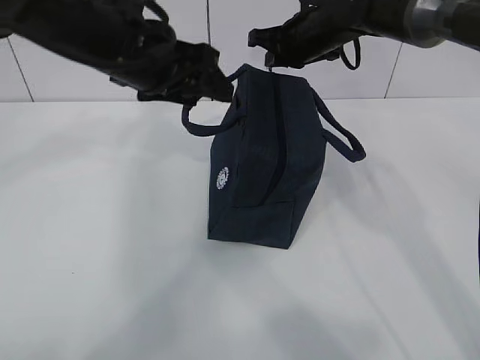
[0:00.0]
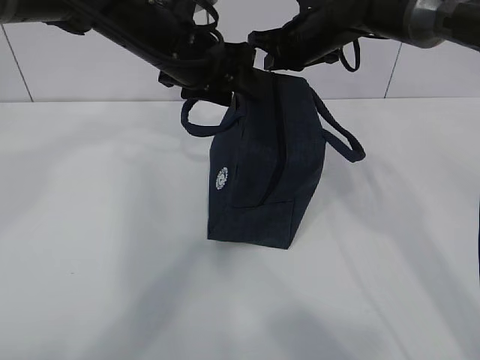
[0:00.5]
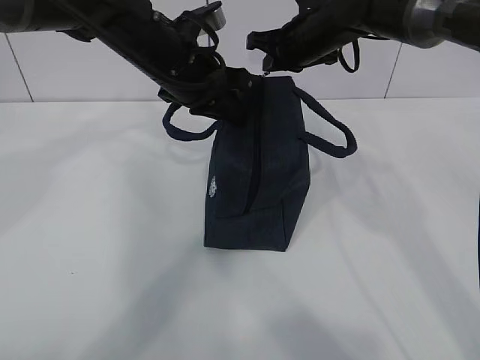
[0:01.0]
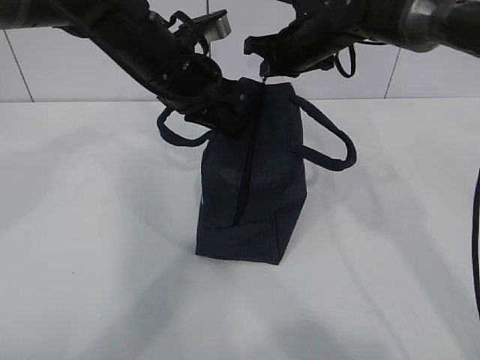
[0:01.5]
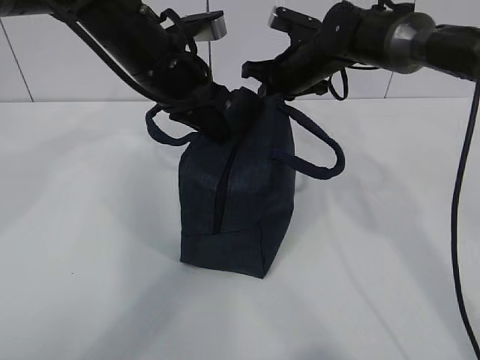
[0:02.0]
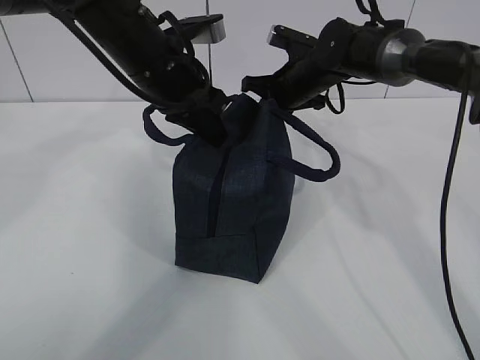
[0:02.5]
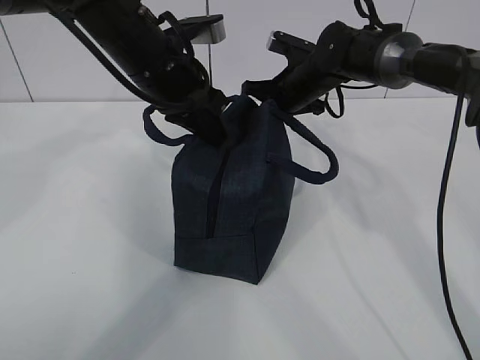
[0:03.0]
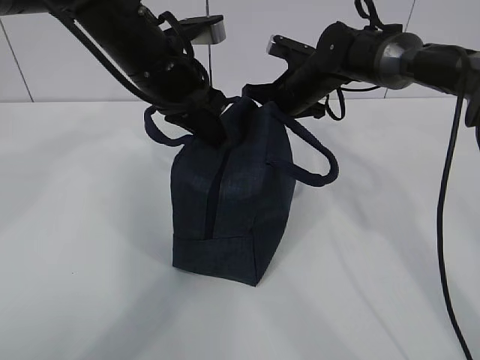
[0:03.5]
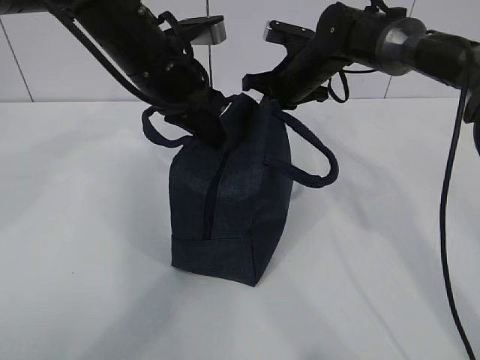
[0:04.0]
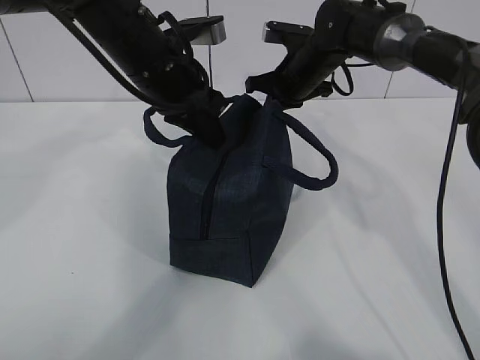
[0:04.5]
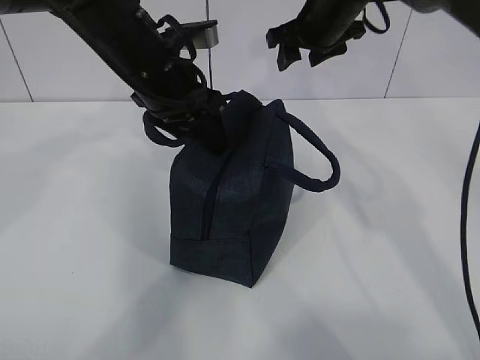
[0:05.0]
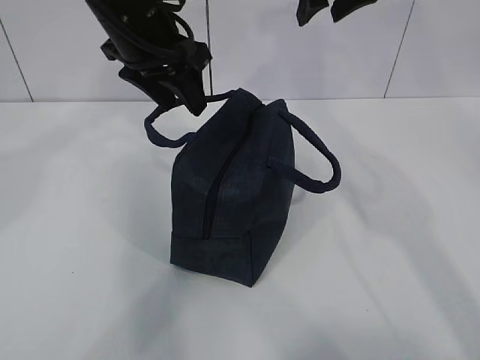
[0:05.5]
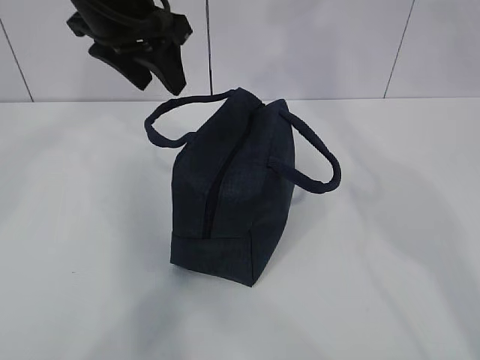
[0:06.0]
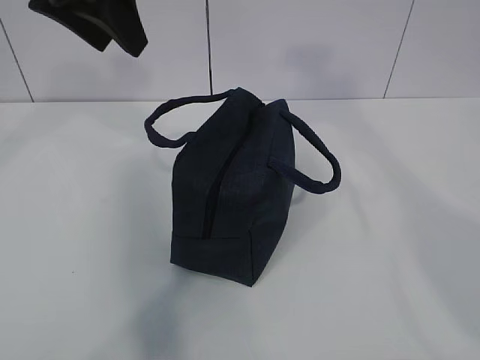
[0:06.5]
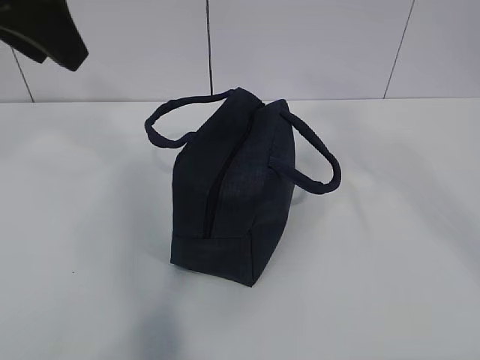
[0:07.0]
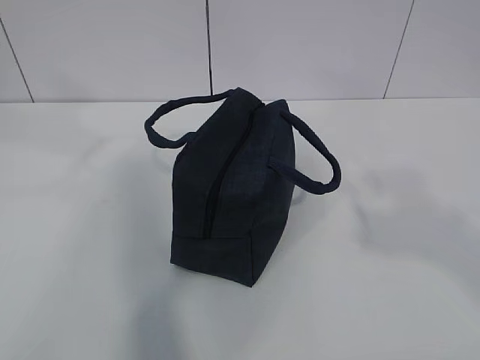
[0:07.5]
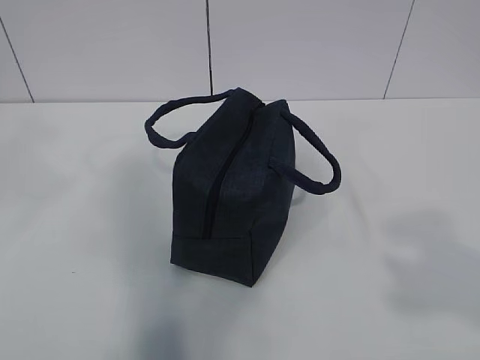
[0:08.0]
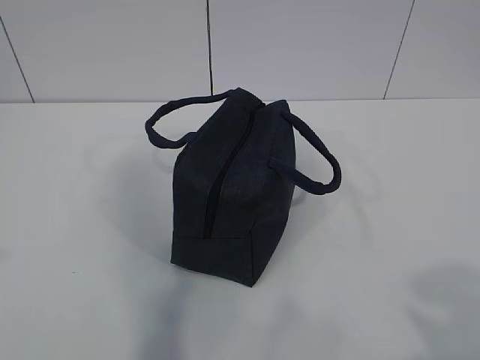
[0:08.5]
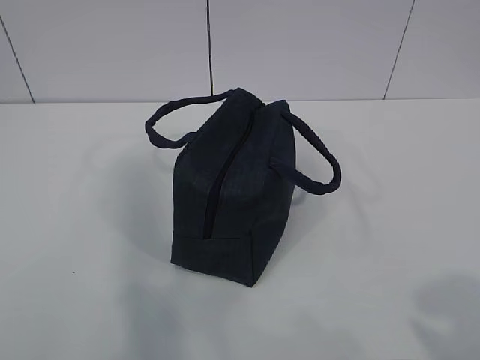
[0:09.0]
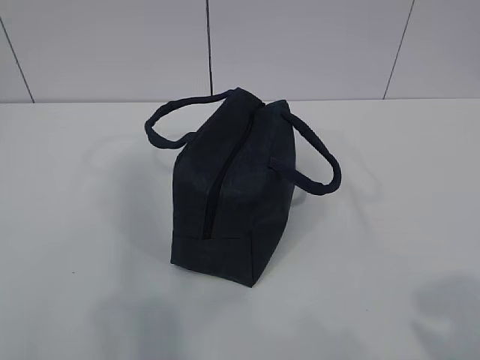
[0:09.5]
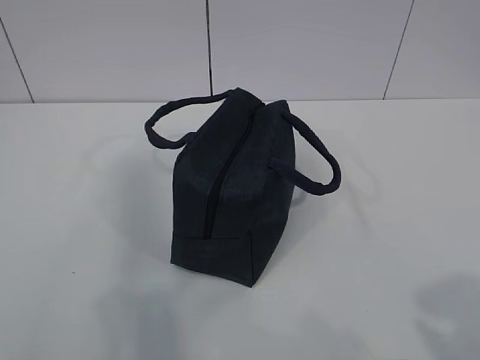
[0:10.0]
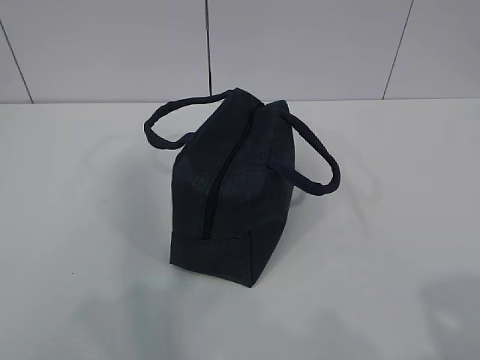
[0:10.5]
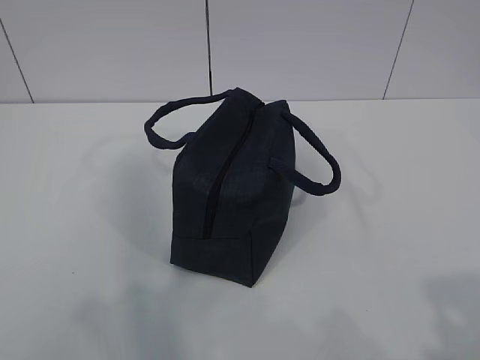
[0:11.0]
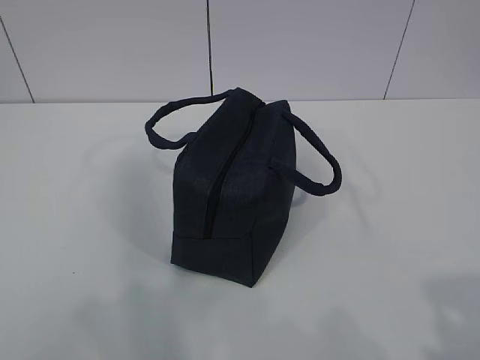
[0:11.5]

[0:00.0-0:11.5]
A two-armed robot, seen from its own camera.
0:00.0 to 0:02.0: The left gripper ends up some 5 cm from where it was, and closes.
0:02.0 to 0:04.0: The grippers stay close to where they were, moving slightly.
0:04.0 to 0:06.0: The left gripper heads upward, covering approximately 10 cm, and opens, while the right gripper heads upward and backward, covering about 25 cm, and opens up.
0:06.0 to 0:07.5: The left gripper moves backward, upward and to the left, roughly 20 cm, and closes its fingers, while the right gripper shifts approximately 35 cm backward.
0:07.5 to 0:09.5: The left gripper is displaced backward, downward and to the left by roughly 30 cm. The right gripper shifts about 15 cm downward.

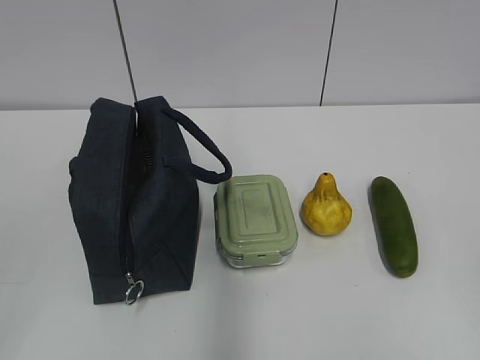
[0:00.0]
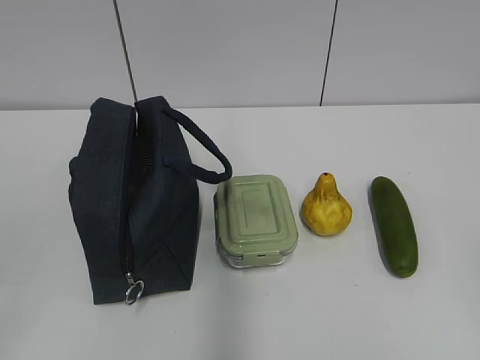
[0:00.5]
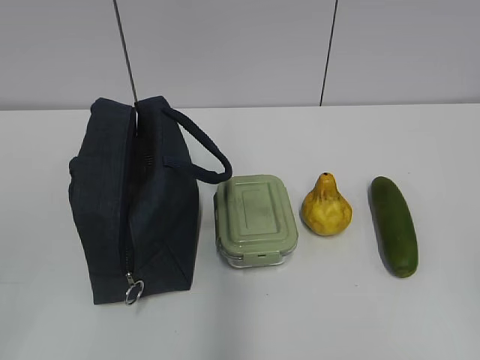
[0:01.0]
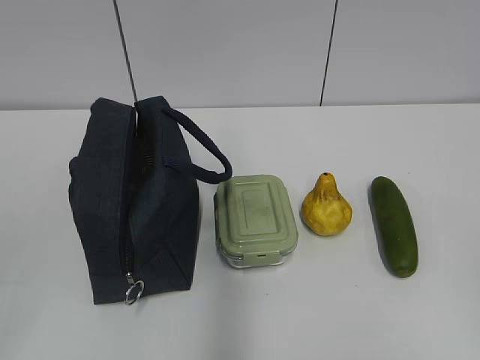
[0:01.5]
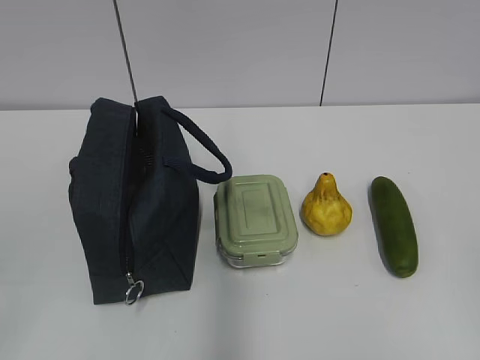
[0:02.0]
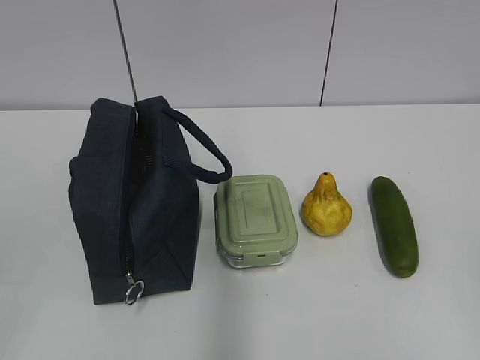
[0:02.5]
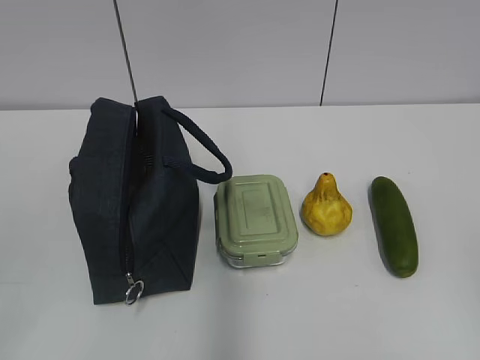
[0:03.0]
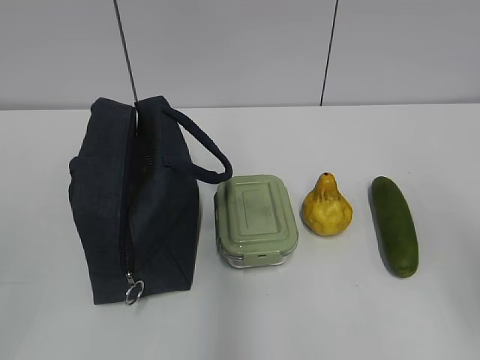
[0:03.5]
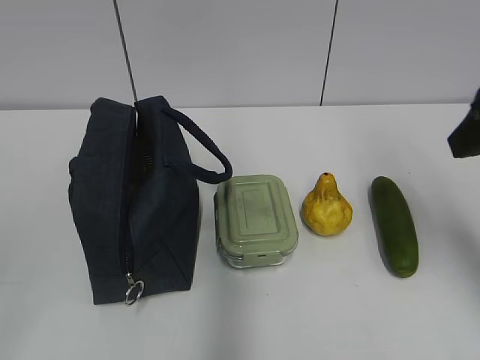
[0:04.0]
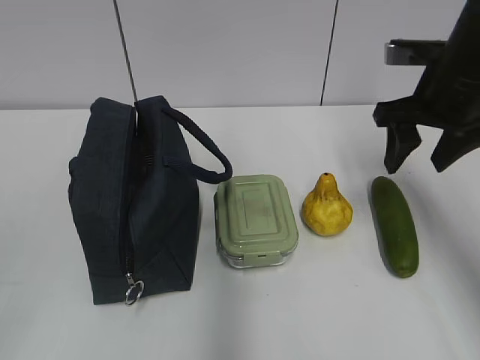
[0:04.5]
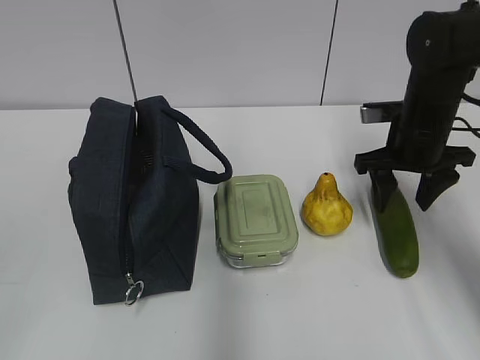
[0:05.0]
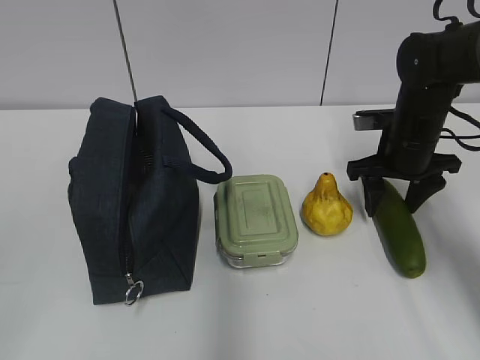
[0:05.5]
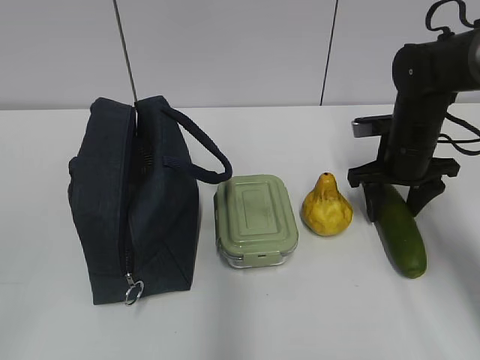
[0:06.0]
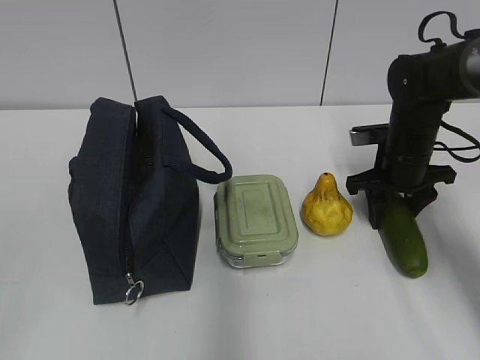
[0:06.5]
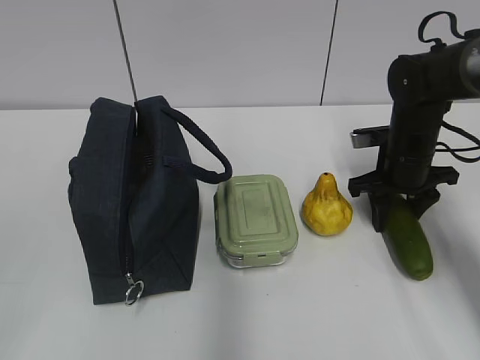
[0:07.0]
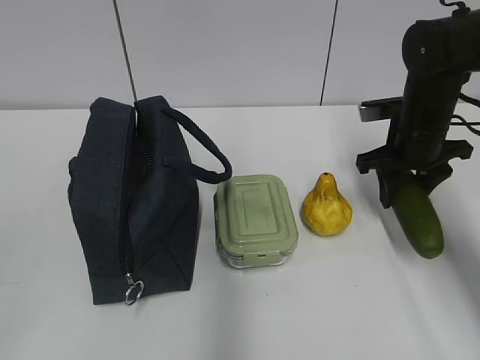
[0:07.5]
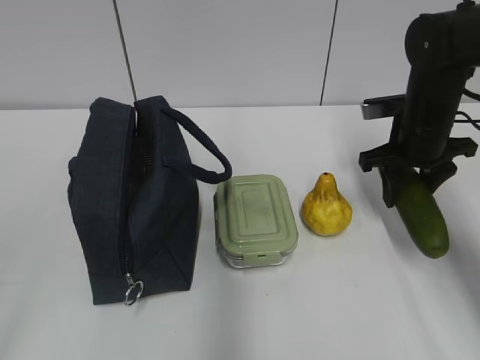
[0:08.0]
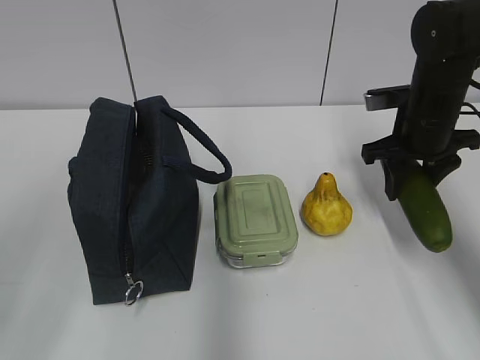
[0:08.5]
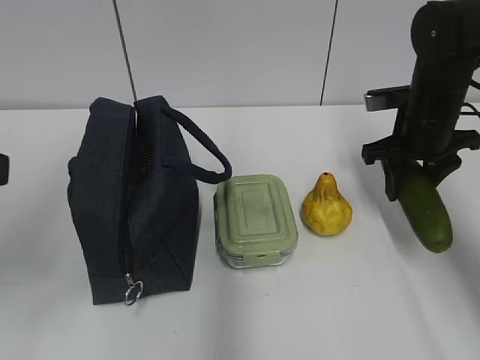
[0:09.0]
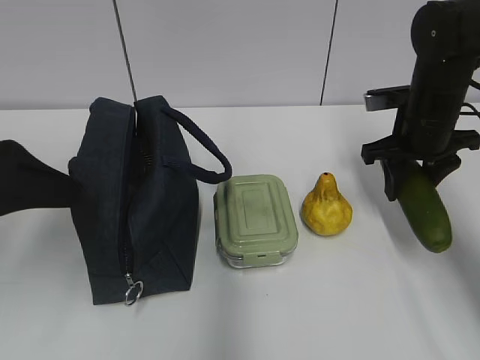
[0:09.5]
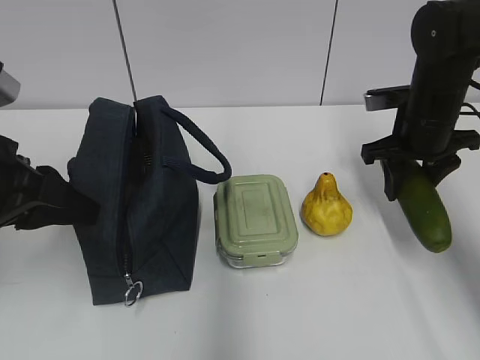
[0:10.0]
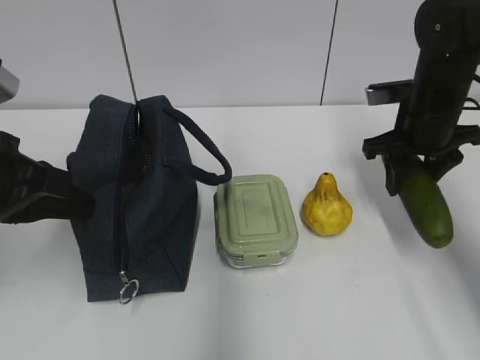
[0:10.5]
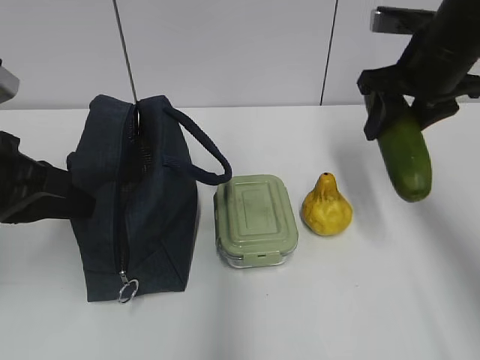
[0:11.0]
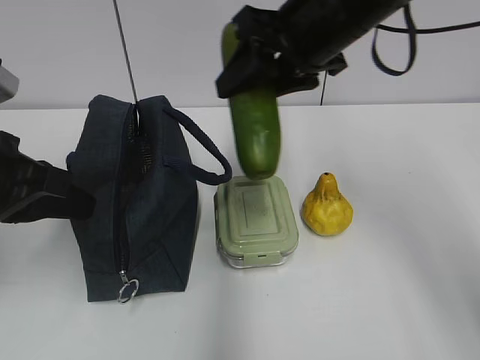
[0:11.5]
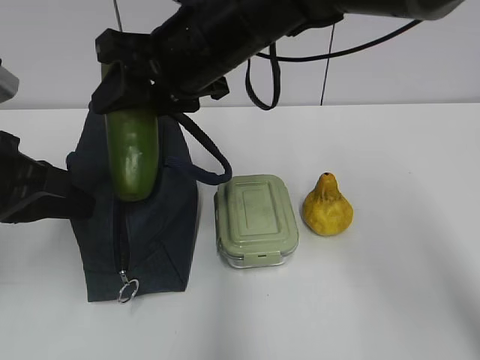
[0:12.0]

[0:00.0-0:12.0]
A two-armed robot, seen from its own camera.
0:02.0 to 0:04.0: The right gripper is displaced forward by roughly 25 cm, and opens.
0:04.0 to 0:06.0: The right gripper moves downward and forward, some 25 cm.
0:06.0 to 0:08.0: The grippers stay close to where they were, moving slightly.
0:08.0 to 0:10.0: The left gripper heads forward, covering about 25 cm.
0:10.0 to 0:12.0: The right gripper moves to the left and upward, approximately 25 cm. The left gripper closes up.

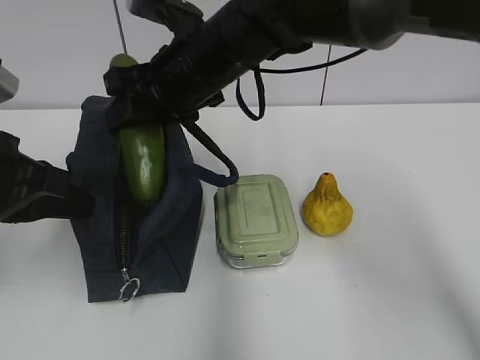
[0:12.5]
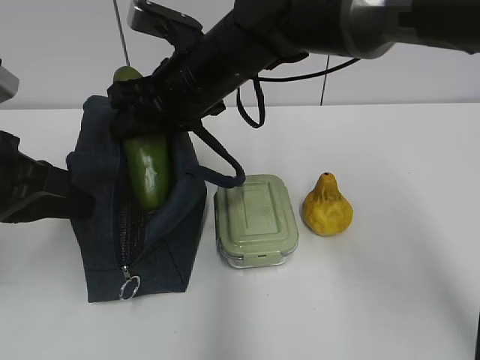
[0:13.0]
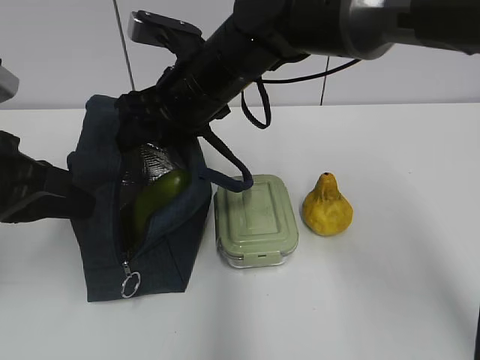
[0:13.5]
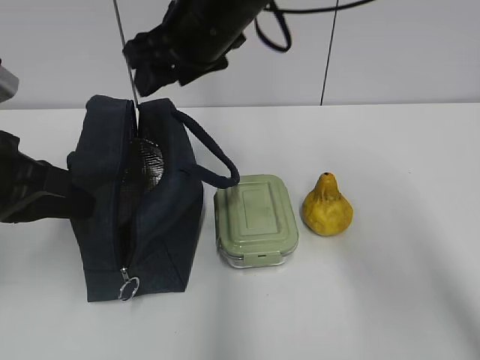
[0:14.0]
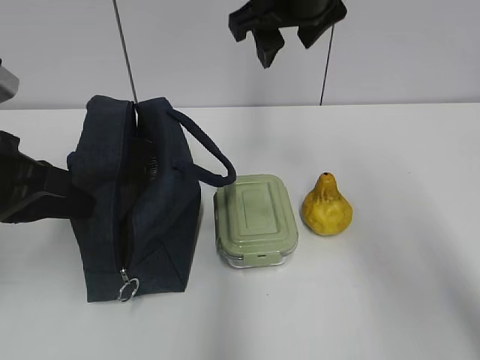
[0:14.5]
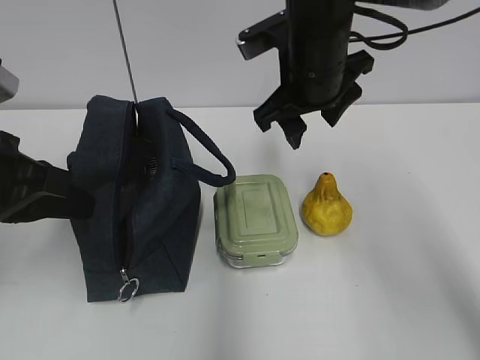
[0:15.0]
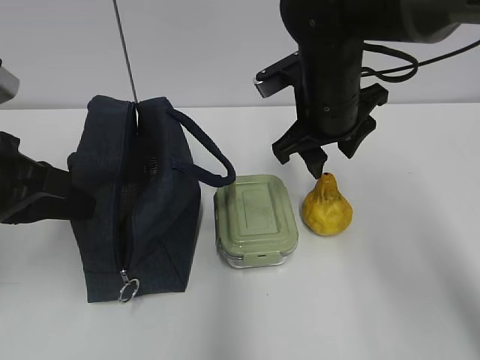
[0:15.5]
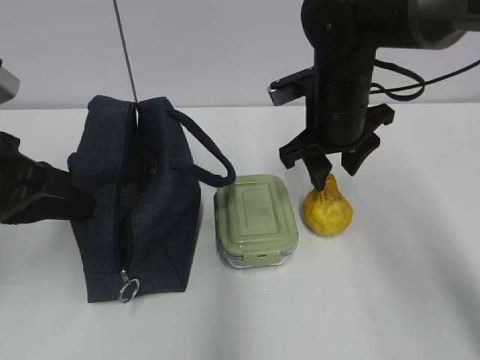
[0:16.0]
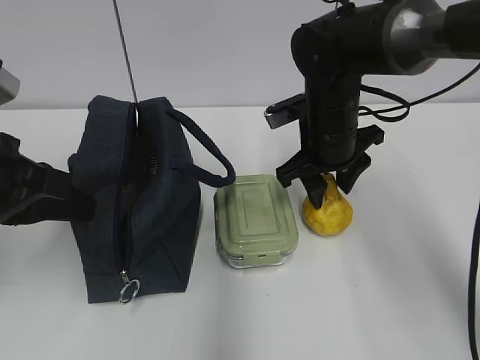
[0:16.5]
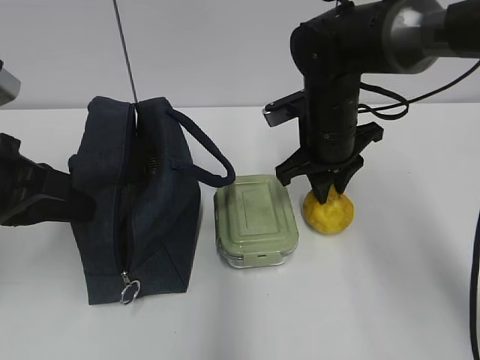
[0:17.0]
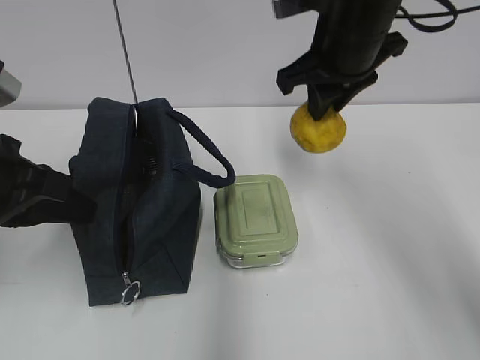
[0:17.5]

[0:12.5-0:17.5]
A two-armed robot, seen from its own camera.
0:12.5 to 0:15.0: The right gripper goes some 10 cm to the right.
0:15.0 to 0:17.5: The right gripper travels downward and back again, approximately 10 cm each way, and closes up.
